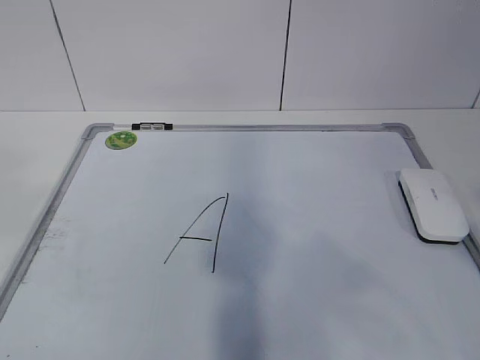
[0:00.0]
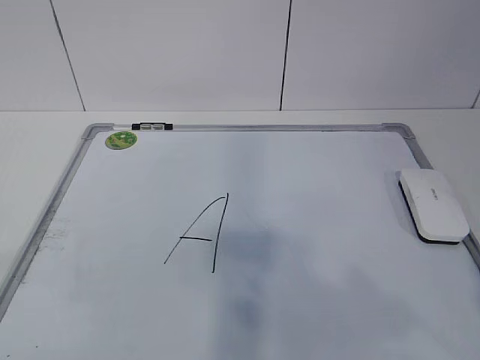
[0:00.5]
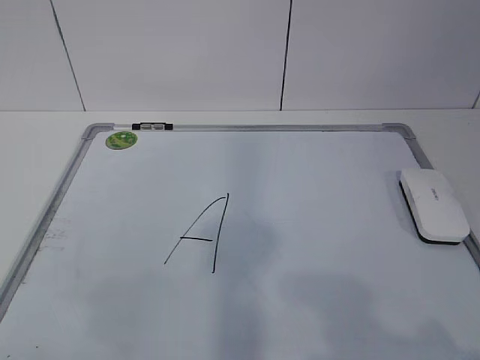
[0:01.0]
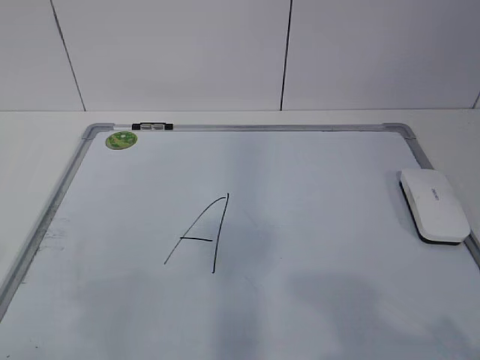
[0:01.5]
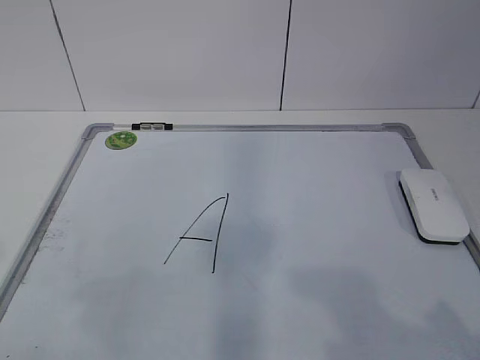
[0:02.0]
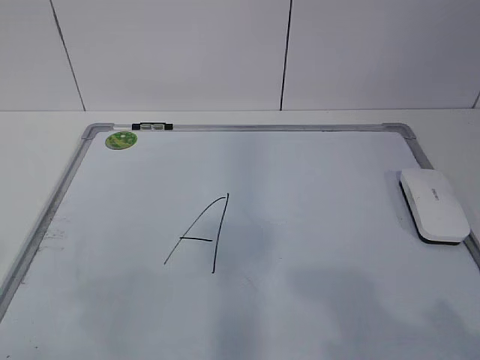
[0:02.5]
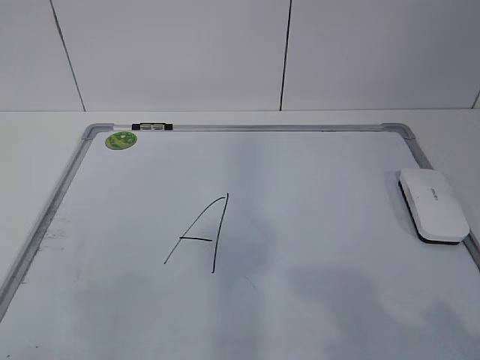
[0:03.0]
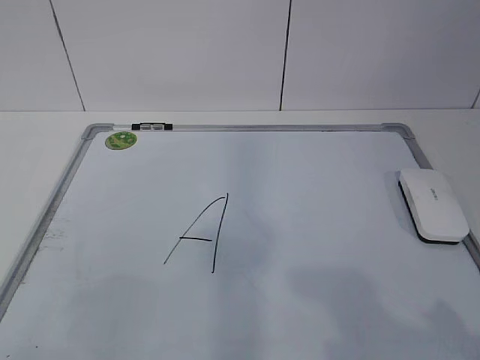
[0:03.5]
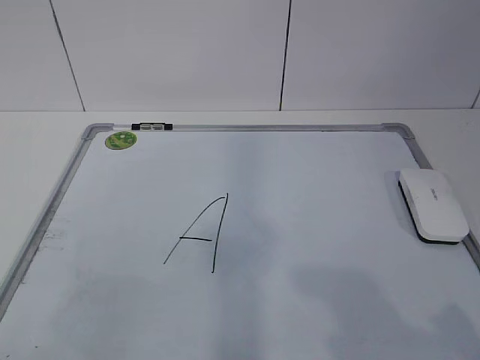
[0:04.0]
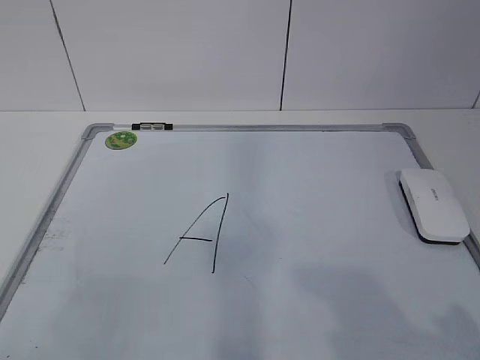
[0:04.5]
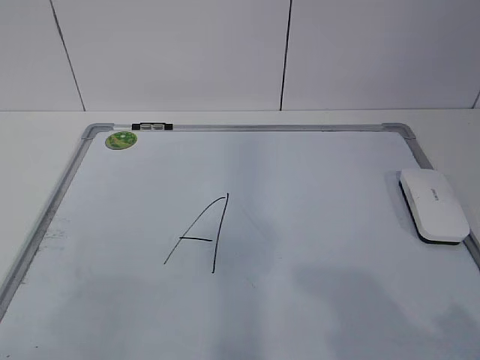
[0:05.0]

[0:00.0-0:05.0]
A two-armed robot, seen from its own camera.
Task of the whole recording: pick up the eraser on the blackboard and erase the letter "a".
0:00.0 to 0:02.5: The grippers both shift downward by some 15 cm.

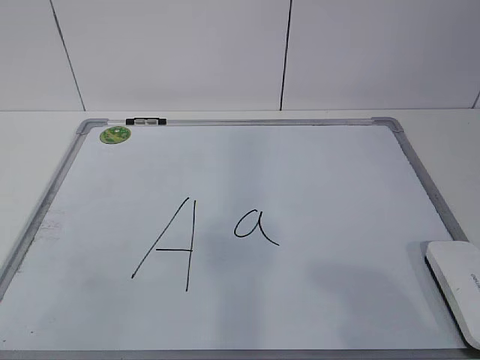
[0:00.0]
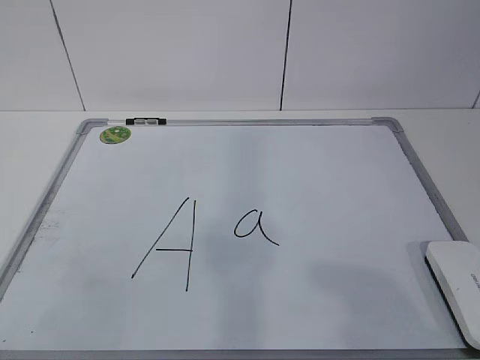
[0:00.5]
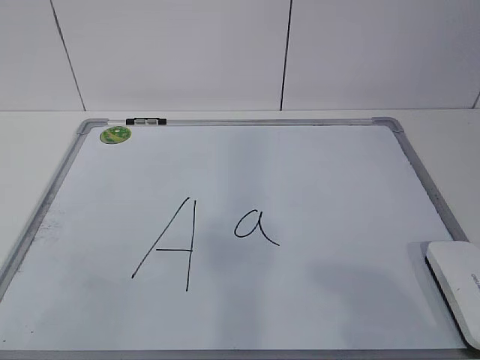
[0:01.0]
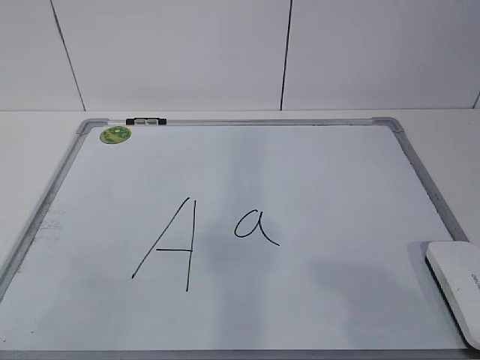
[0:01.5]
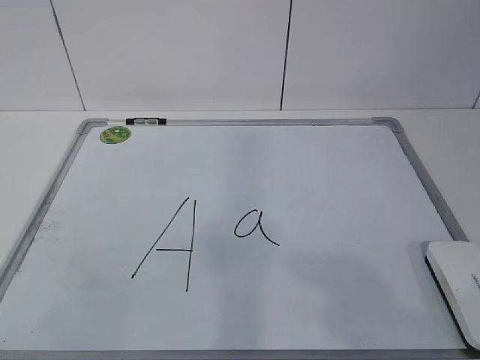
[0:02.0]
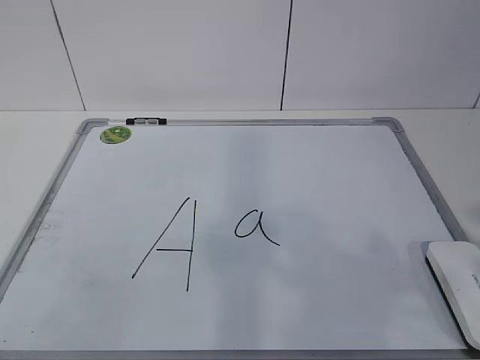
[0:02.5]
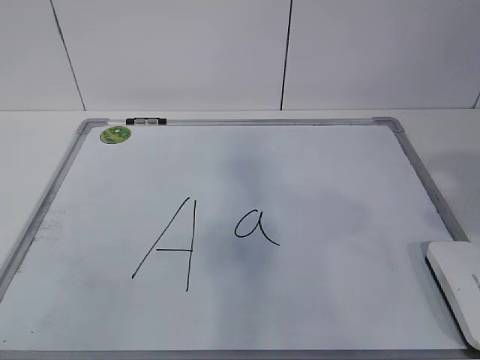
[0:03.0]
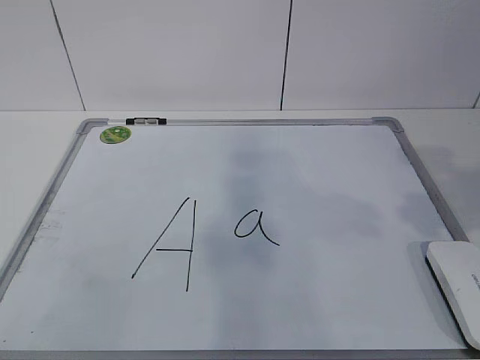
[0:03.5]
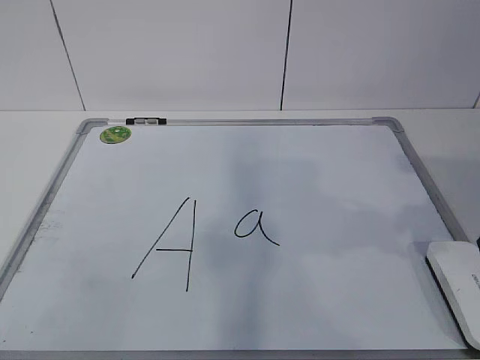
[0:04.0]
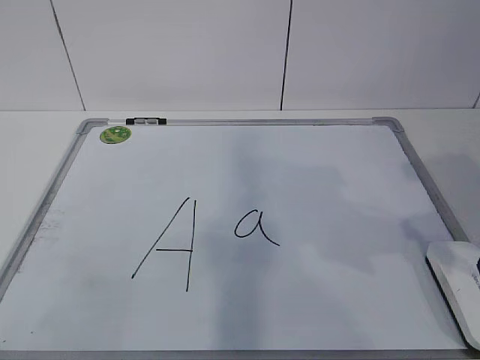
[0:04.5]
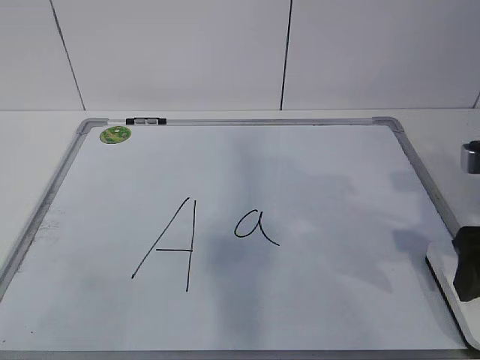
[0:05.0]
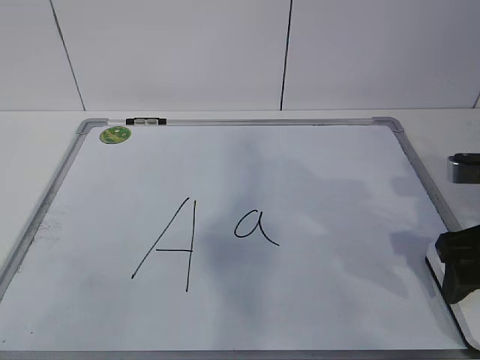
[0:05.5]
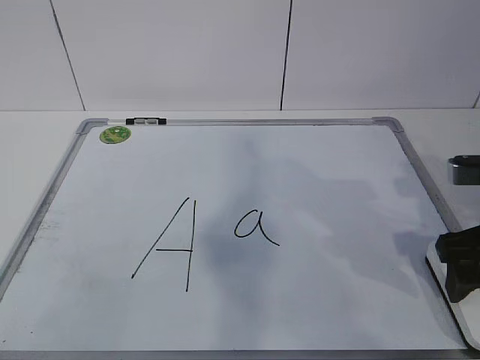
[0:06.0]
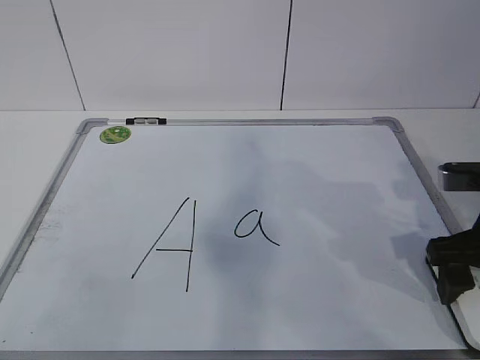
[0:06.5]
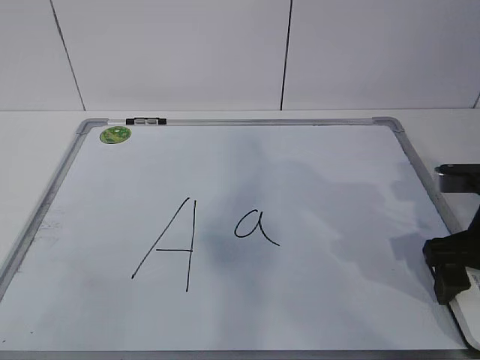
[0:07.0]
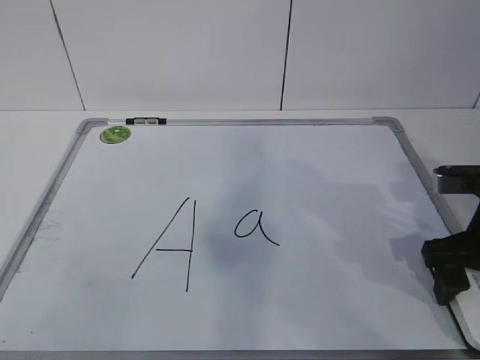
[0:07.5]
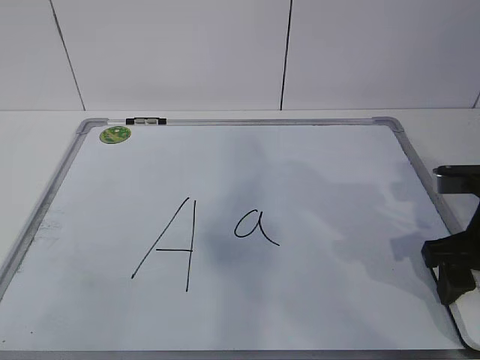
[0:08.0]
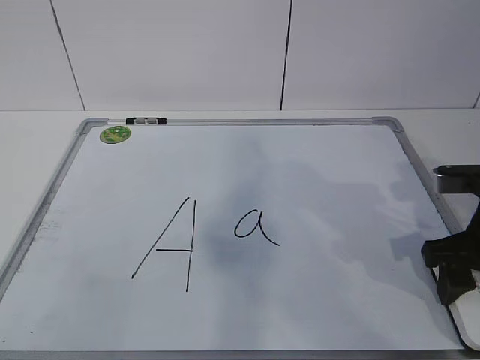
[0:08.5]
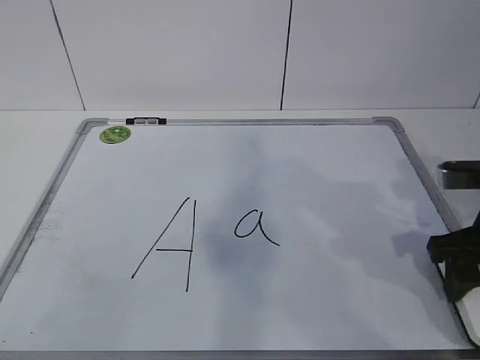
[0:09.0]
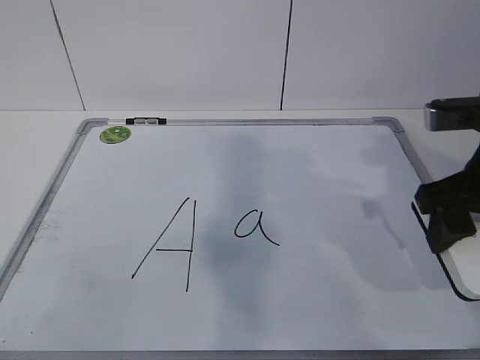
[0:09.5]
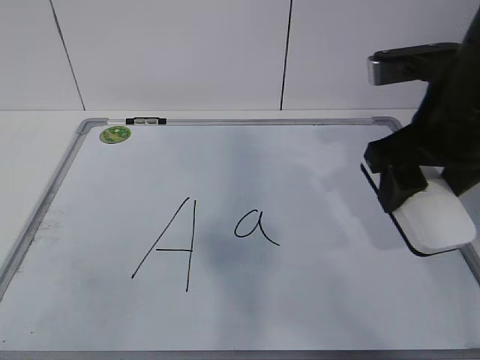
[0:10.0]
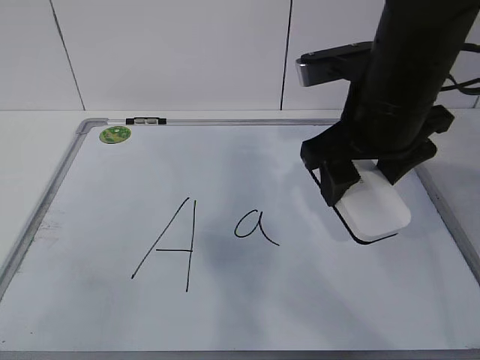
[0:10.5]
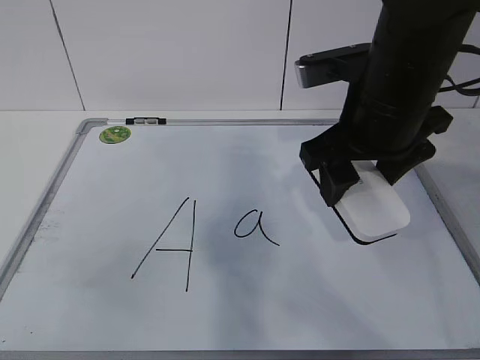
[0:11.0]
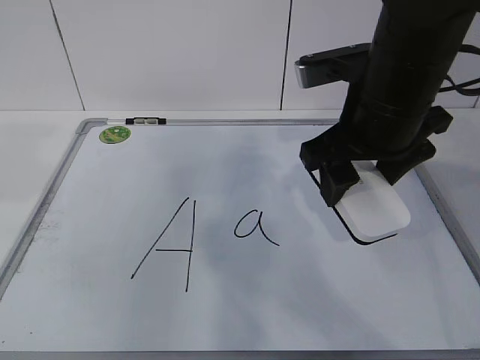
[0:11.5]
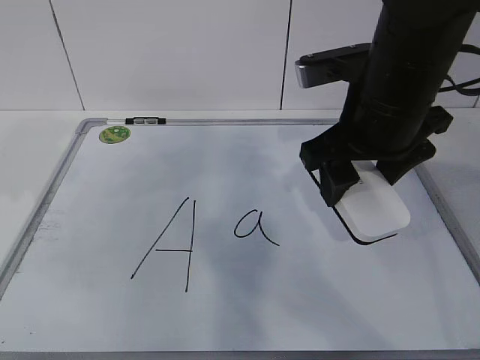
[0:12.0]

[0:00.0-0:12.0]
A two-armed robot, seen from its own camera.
Task of the whole recording: pick up the eraser on the blackboard and erase the letter "a".
Step, 0:00.0 to 0:06.0: Grab the eraser with your right hand.
0:04.0 to 0:06.0: The right gripper heads downward and forward, covering some 10 cm.
0:06.0 to 0:08.0: The right gripper closes.
0:08.0 to 0:10.0: The right gripper heads upward and to the left, covering about 15 cm.
0:10.0 to 0:12.0: The right gripper shifts by some 5 cm, while the left gripper is displaced forward by some 25 cm.

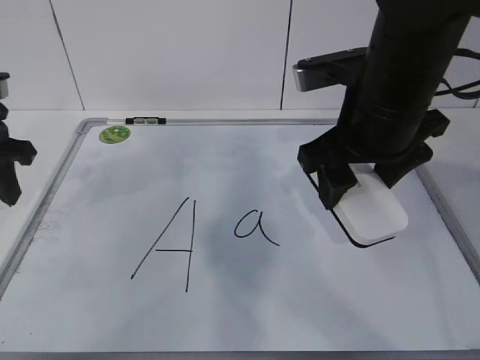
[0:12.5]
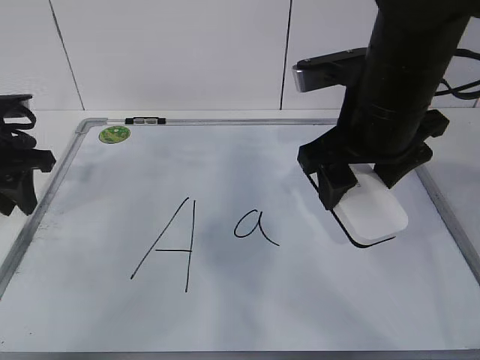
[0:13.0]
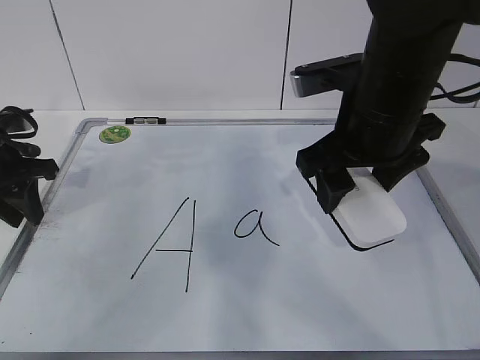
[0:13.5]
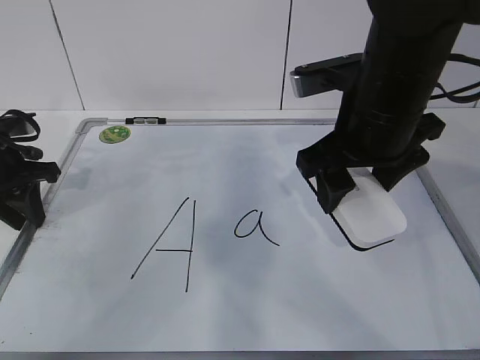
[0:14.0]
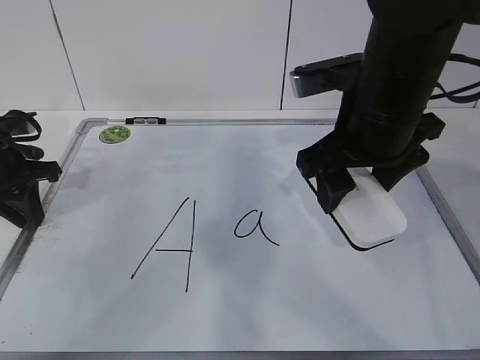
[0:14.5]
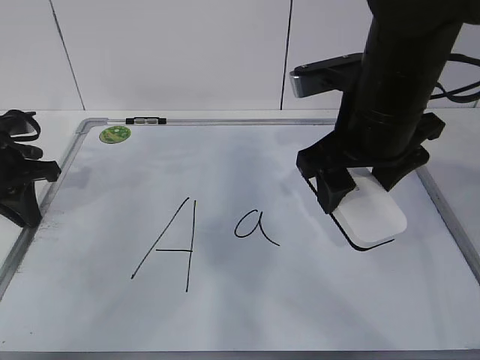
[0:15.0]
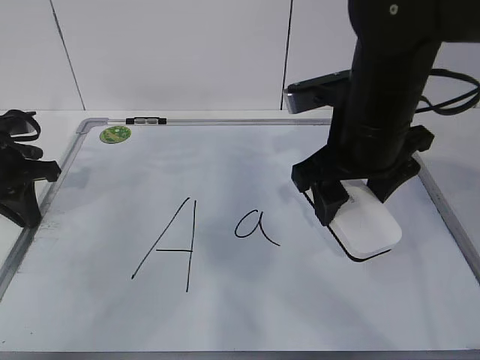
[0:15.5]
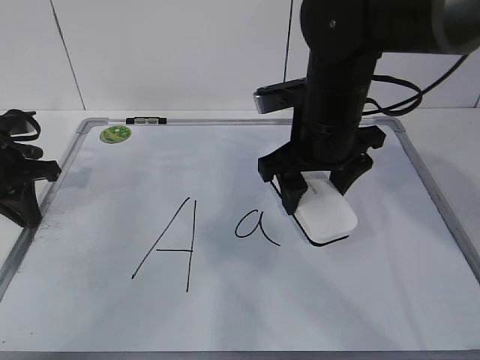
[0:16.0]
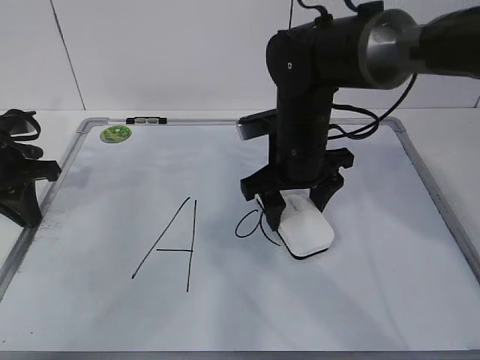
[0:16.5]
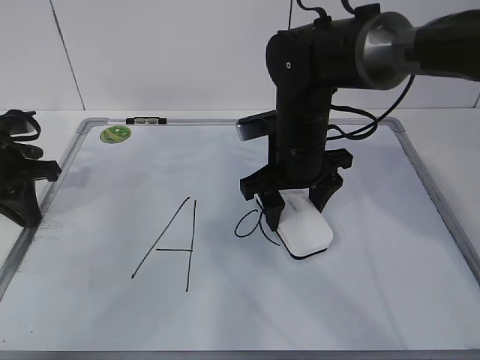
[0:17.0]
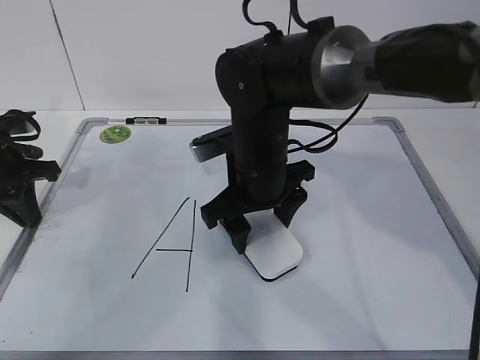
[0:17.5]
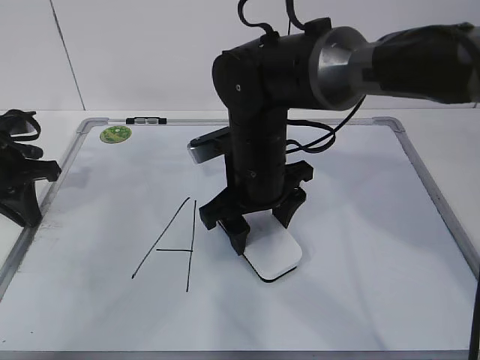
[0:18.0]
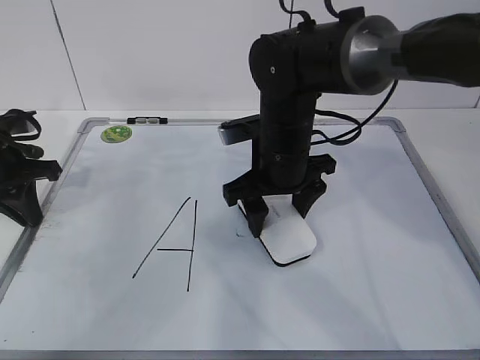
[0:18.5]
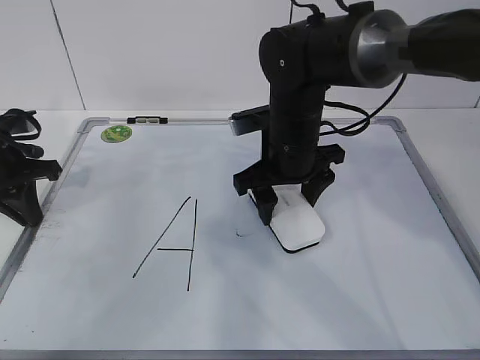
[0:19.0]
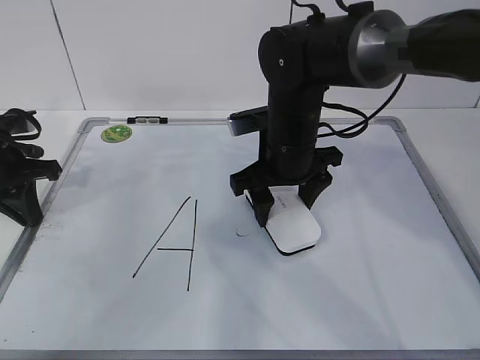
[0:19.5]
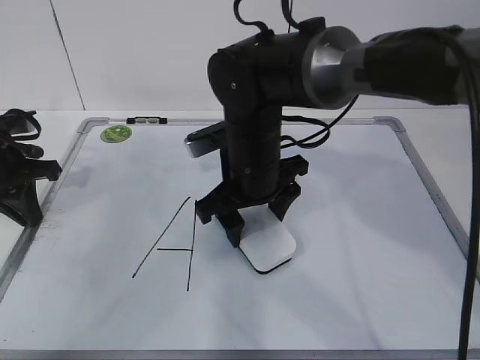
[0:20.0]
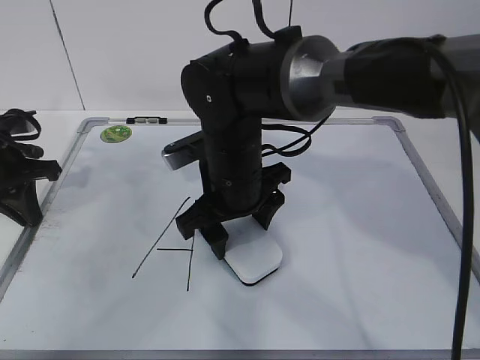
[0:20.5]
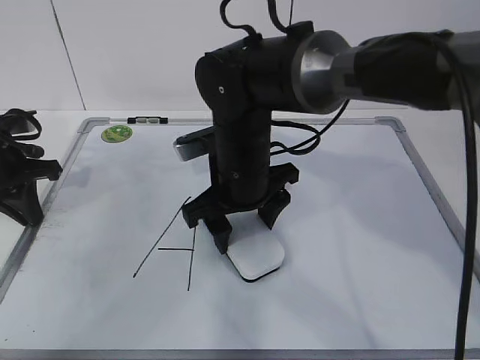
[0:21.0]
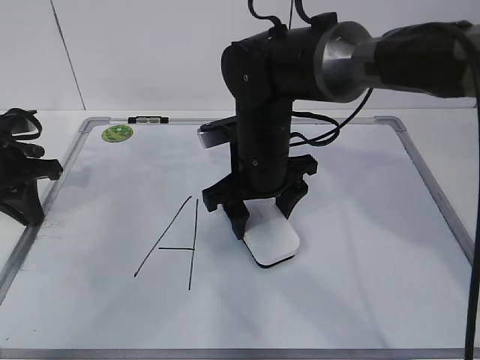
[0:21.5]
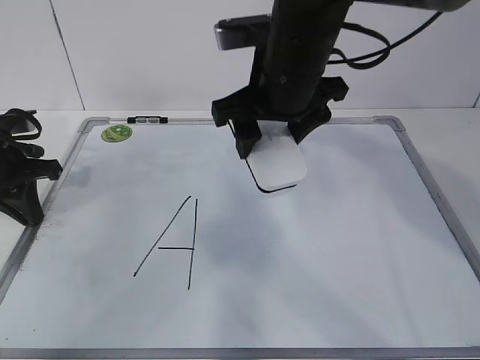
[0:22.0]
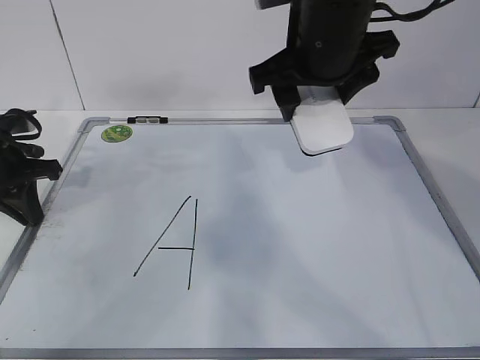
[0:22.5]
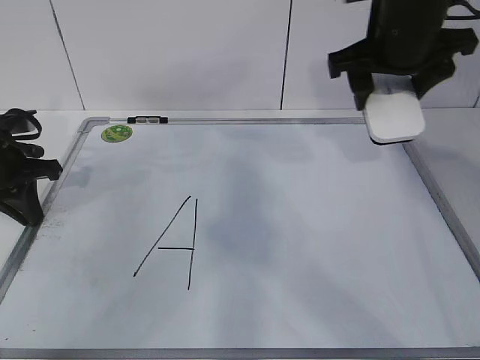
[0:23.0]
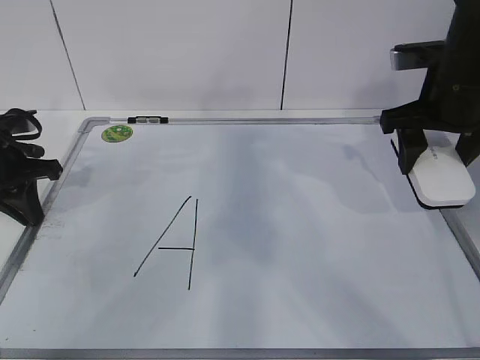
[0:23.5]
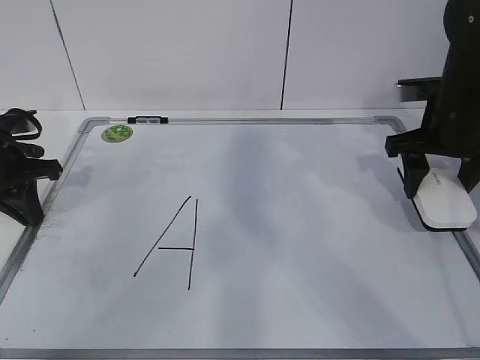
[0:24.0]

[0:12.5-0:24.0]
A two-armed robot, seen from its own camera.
Task of the whole recording: pick up the eraser on the blackboard and erase the letter "a".
Step, 0:13.0 to 0:17.5: Erase the letter a with your right hand.
Step, 0:18.0 to 0:21.0: Put down the eraser with your right hand.
0:12.5 to 0:14.5: The left gripper travels downward by some 5 cm.
0:14.5 to 0:16.5: The right gripper moves downward and forward, approximately 10 cm.
0:18.5 to 0:20.0: The grippers stay close to where they were, moving slightly.
0:20.0 to 0:22.0: The right gripper moves upward, approximately 10 cm.
0:22.0 to 0:24.0: The right gripper goes about 20 cm to the right.
